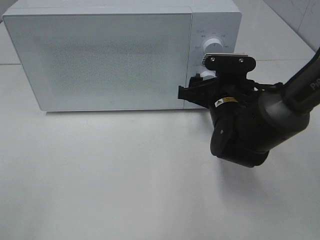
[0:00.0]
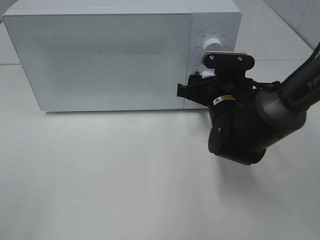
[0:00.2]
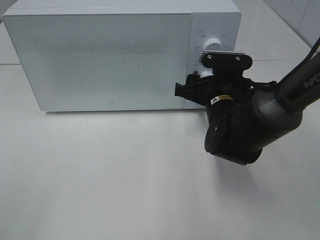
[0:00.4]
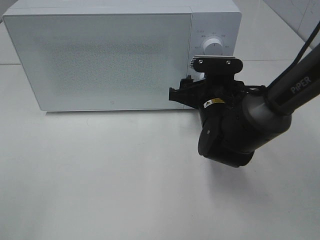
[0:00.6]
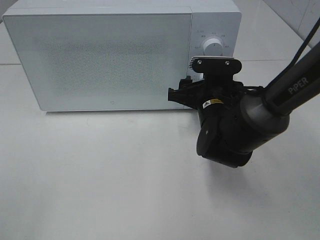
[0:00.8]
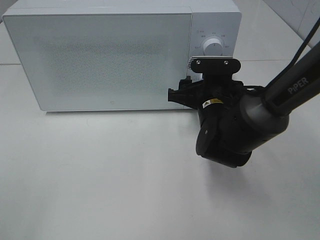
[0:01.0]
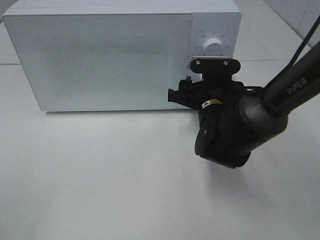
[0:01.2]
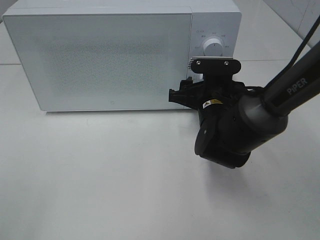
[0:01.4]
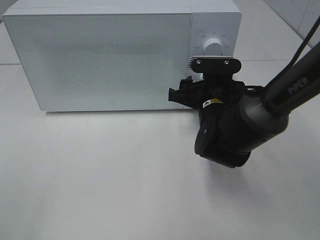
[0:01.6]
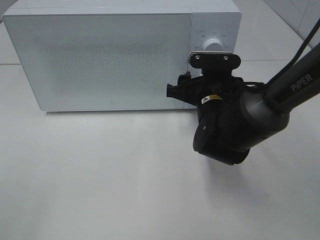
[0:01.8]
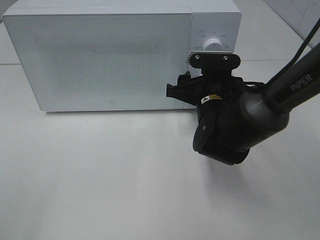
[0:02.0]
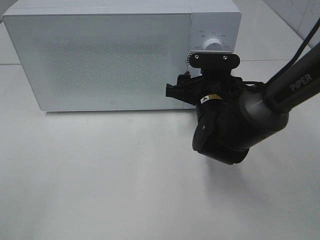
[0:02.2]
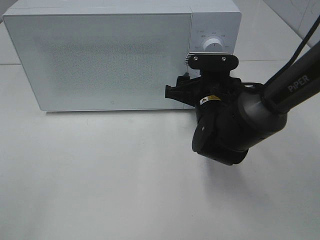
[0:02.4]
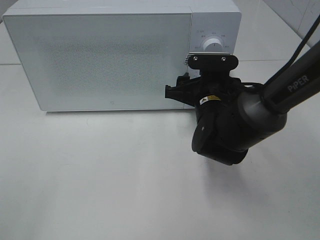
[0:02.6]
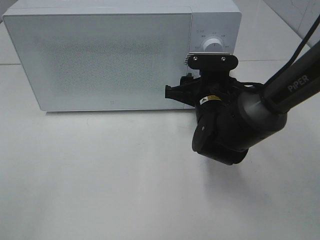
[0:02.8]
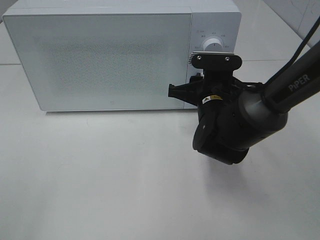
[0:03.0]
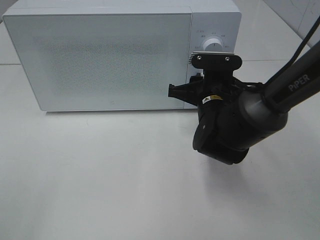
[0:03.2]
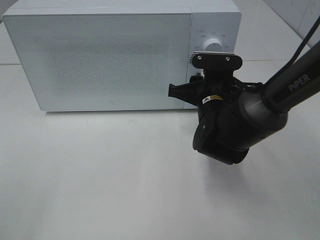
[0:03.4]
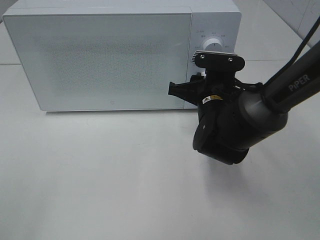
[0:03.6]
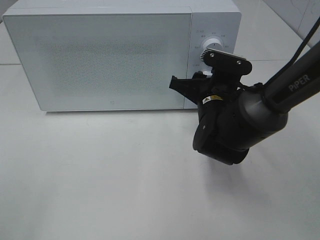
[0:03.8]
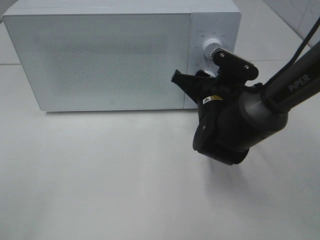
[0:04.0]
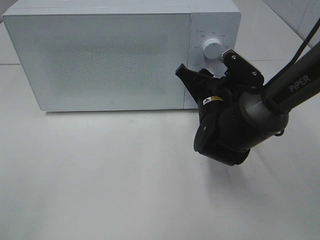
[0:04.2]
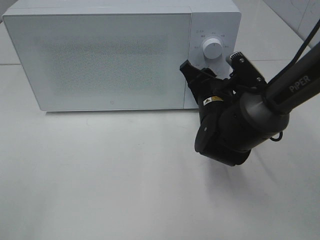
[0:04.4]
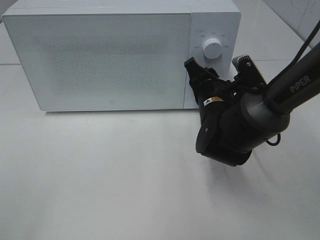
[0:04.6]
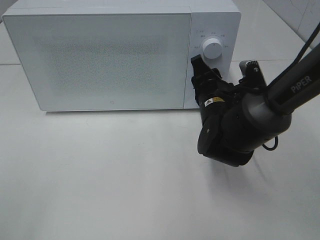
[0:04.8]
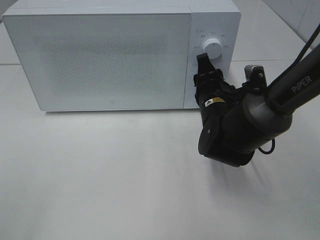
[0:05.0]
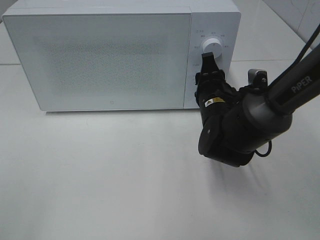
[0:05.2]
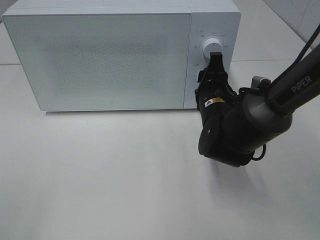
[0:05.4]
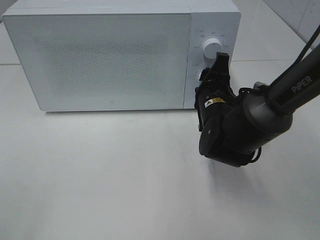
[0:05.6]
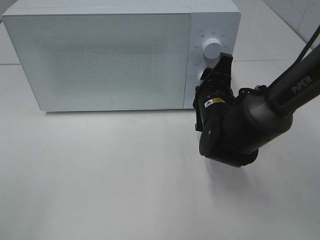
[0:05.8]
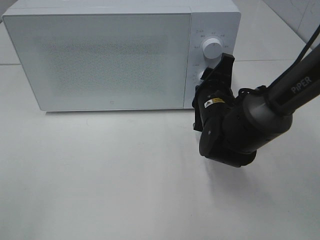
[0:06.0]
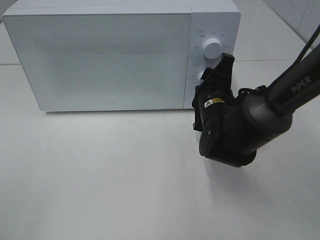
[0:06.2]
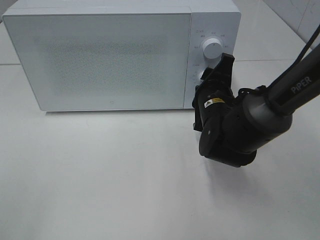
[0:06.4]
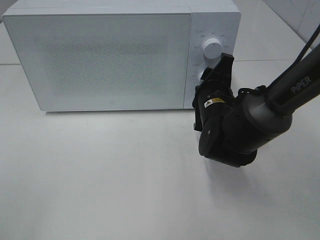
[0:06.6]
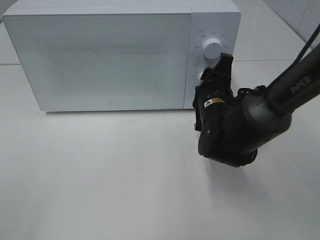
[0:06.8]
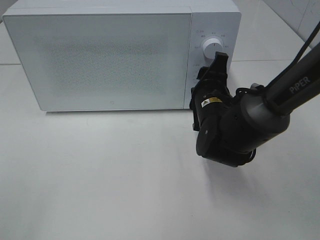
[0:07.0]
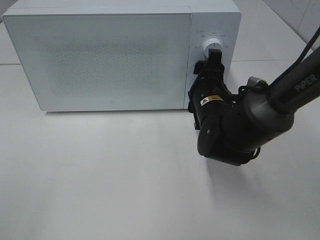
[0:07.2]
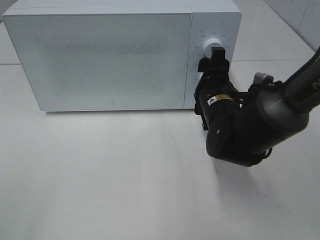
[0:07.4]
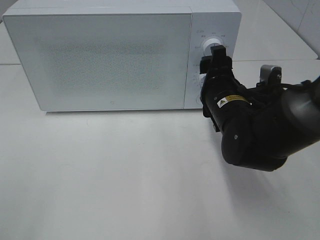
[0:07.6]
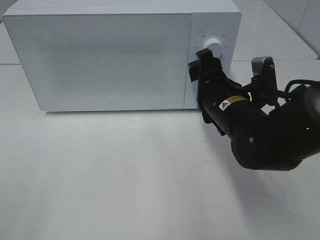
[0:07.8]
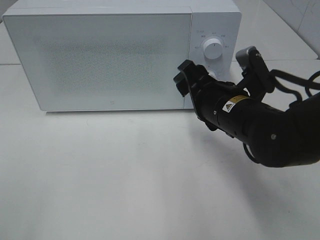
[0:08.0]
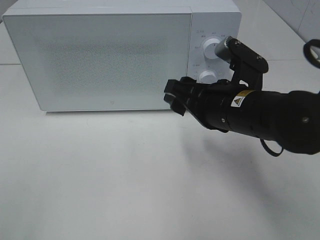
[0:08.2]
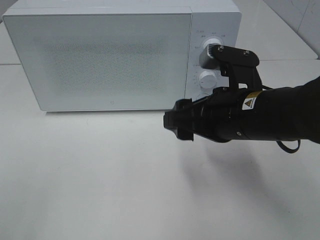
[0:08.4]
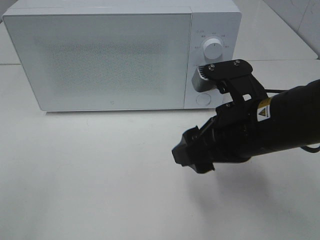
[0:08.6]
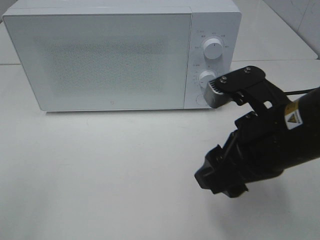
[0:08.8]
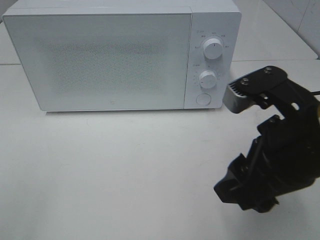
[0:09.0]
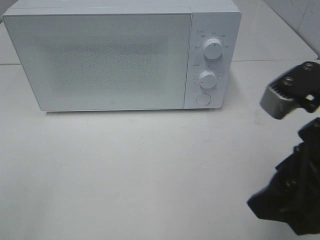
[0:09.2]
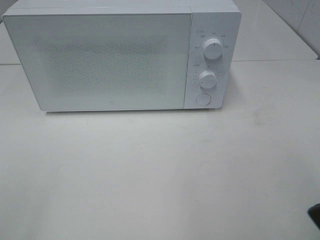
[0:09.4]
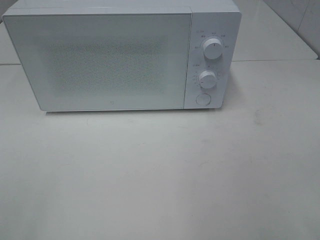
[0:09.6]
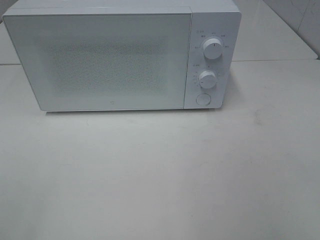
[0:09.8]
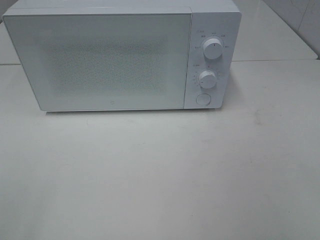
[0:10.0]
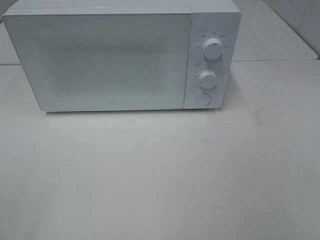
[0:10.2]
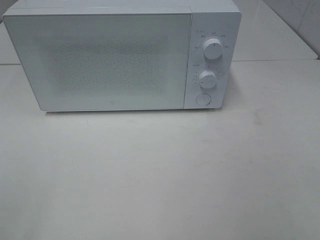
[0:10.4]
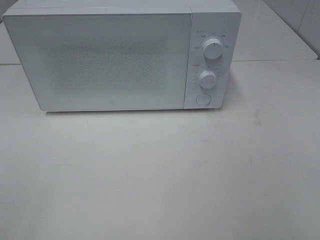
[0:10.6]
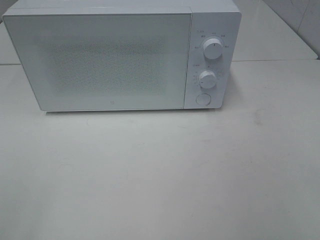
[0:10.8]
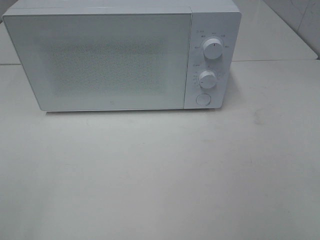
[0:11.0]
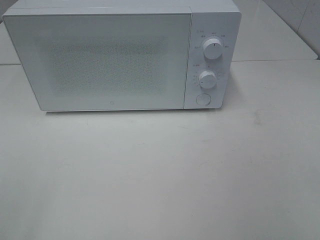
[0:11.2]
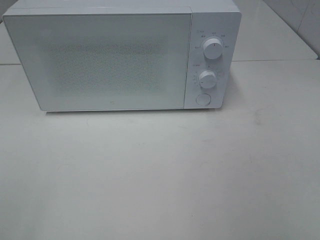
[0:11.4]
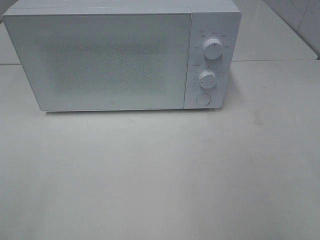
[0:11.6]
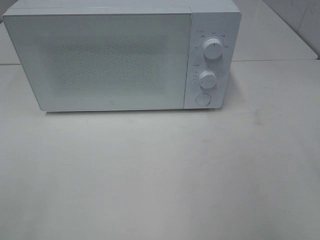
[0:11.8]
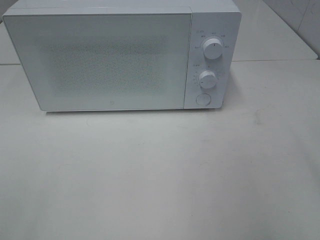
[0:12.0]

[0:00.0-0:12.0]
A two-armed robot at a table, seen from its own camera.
Task of the whole recording: Heat the burger.
Step, 0:00.0 to 0:07.8: Right hand: twist timer button.
0:00.0 to 0:01.6: The grippers move only a little.
0:01.6 to 0:03.0: Neither gripper changes place.
0:07.6 to 0:09.0: The right gripper is displaced backward and upward by roughly 15 cm.
0:09.0 to 0:10.4: The right gripper travels backward and to the right by roughly 20 cm.

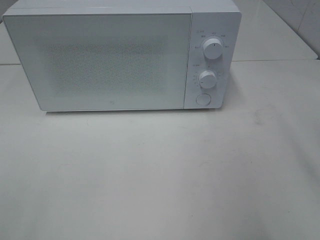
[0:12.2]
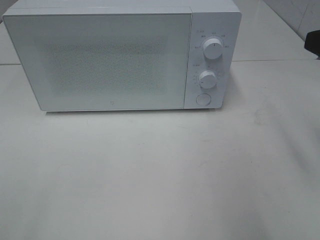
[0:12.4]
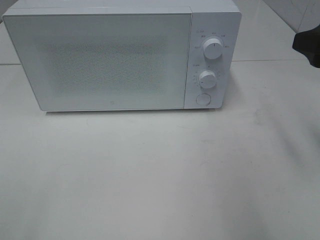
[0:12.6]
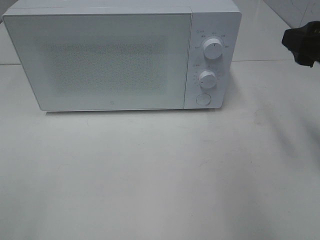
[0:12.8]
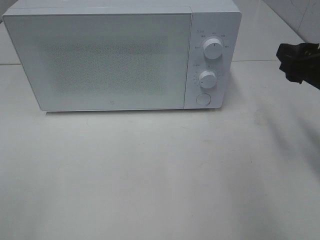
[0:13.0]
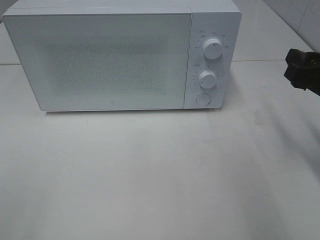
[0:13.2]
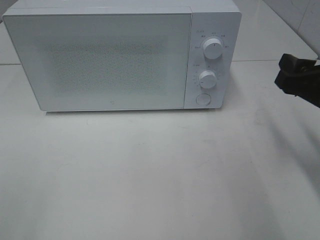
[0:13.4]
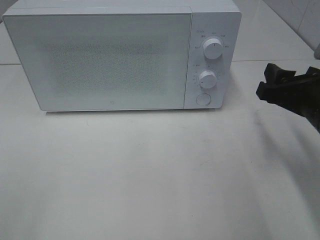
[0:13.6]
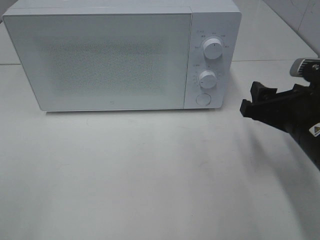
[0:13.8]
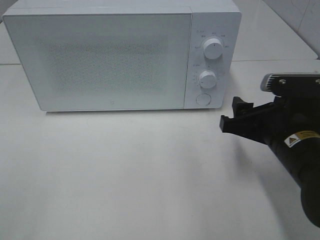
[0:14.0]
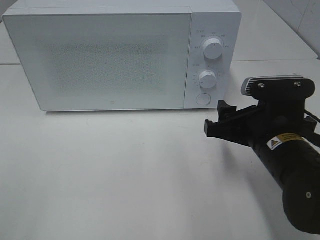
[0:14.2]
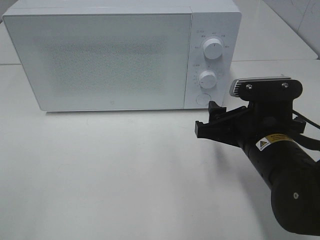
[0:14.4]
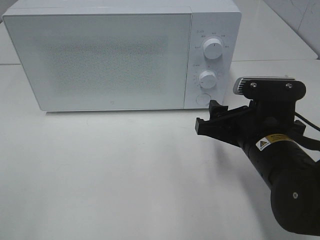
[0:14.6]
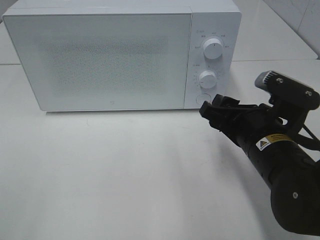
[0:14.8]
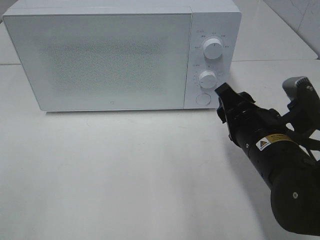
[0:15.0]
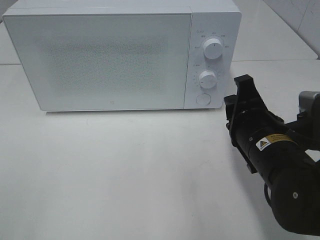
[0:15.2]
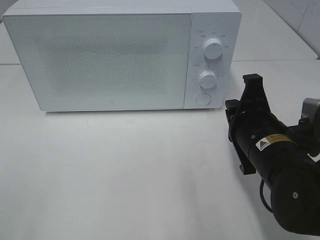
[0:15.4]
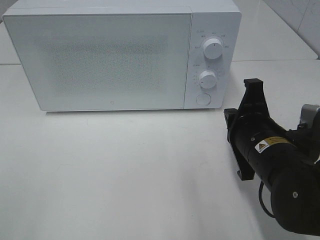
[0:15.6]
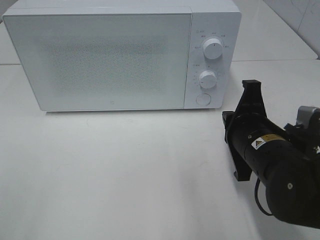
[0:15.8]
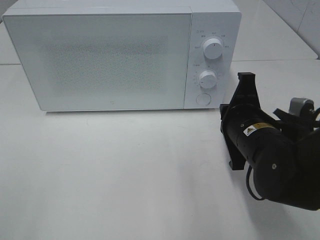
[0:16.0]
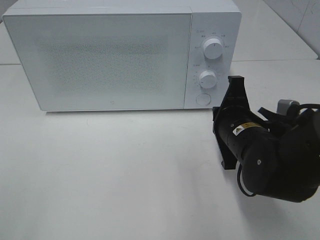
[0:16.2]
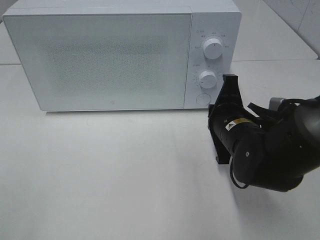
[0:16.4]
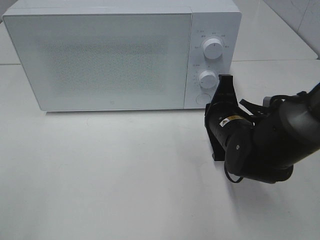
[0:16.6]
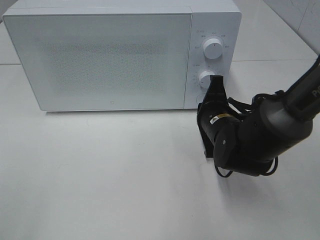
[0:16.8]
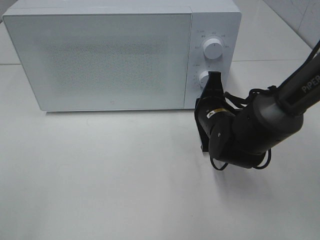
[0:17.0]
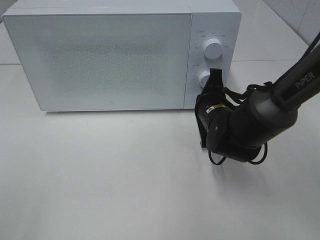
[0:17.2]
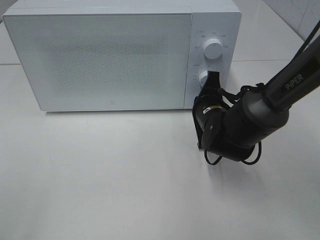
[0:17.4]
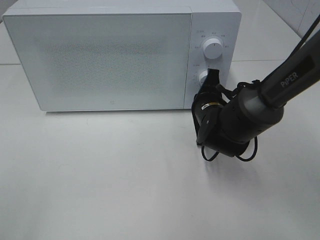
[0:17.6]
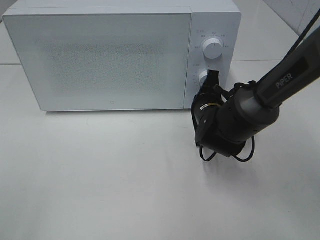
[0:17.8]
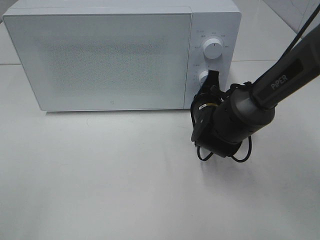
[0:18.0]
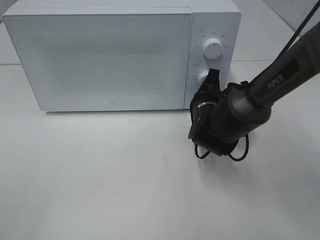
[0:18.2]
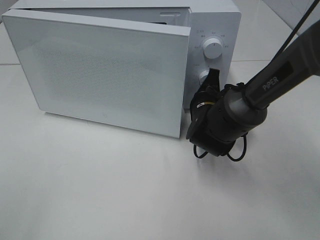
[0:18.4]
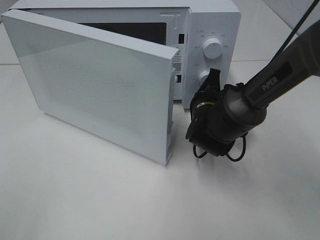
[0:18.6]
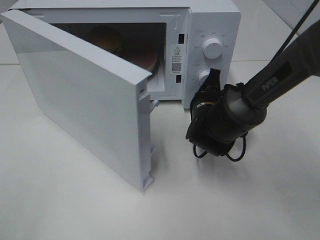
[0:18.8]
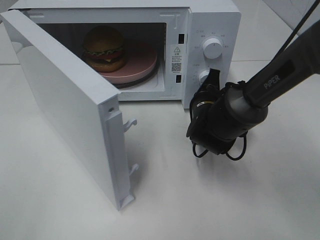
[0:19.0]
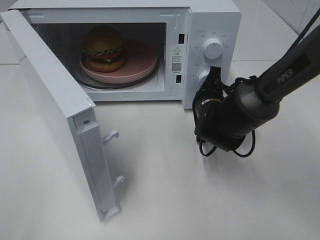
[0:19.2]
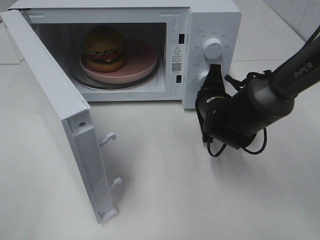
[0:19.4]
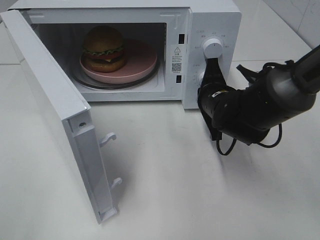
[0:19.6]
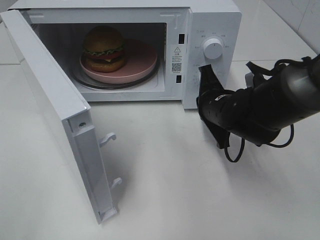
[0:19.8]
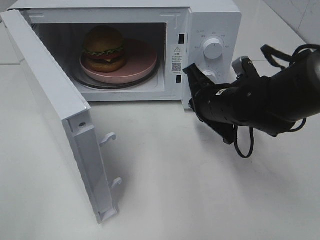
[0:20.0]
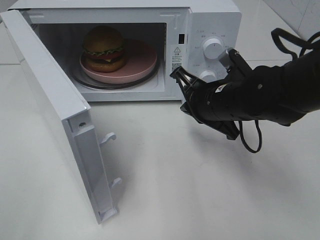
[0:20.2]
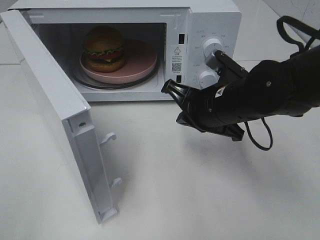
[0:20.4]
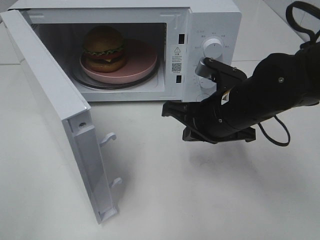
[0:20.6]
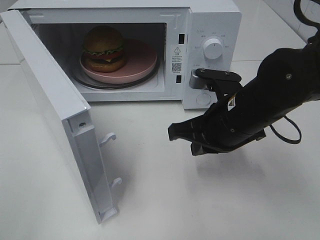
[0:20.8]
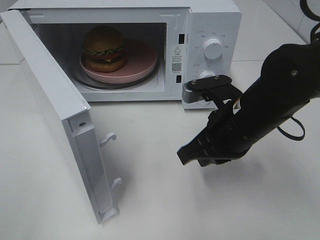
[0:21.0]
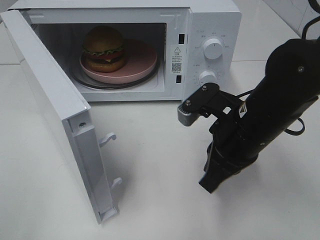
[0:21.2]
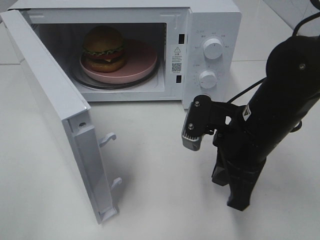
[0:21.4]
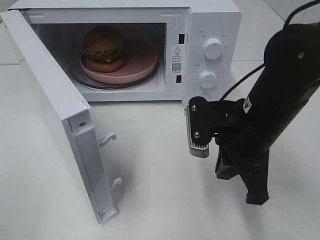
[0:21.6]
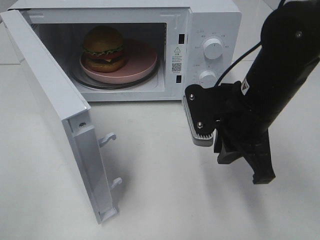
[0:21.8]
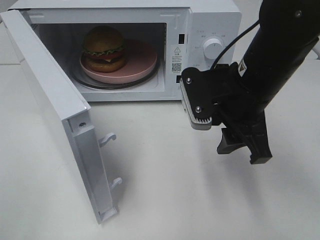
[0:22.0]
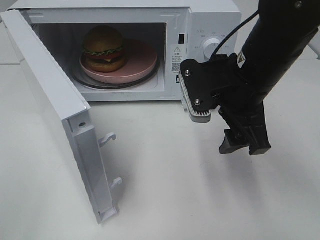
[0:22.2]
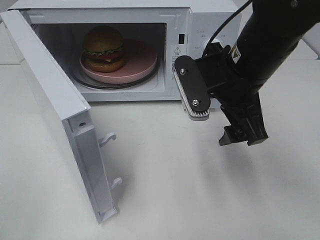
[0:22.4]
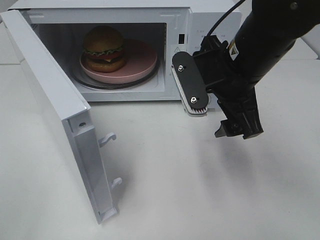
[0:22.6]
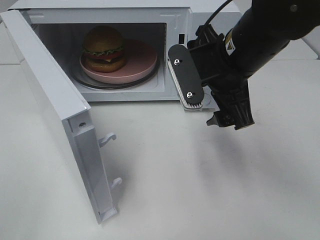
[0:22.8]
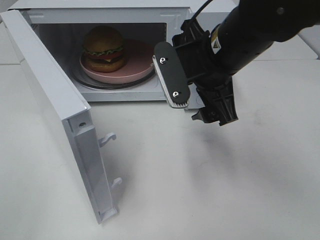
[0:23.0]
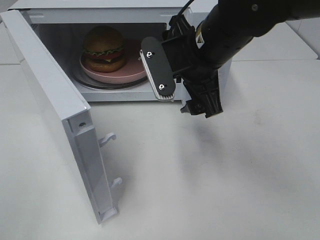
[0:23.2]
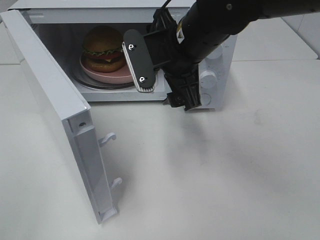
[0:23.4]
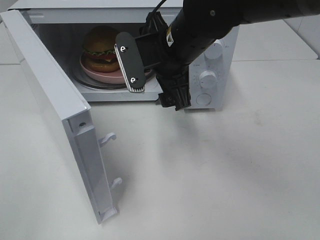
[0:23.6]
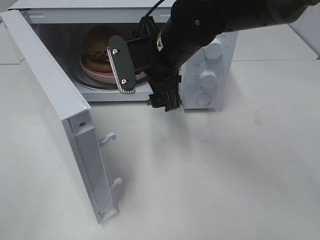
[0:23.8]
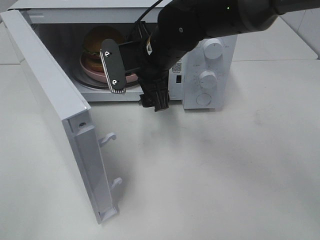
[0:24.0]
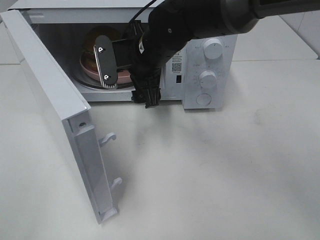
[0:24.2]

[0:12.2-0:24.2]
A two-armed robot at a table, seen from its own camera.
Task of the whole recording: Heat the burger.
Step, 0:12.2 to 0:19.6: Right hand: press the switch.
0:12.2 to 0:13.8: The right gripper shifts some 15 cm downward.
0:13.8 to 0:15.2: The right gripper shifts roughly 5 cm to the left, and closes its fingers.
0:15.2 to 0:16.6: The right gripper shifts some 10 cm forward, and closes.
0:16.6 to 0:18.2: The right gripper heads forward, covering some 5 cm.
0:18.2 to 0:19.8: The right gripper shifts by approximately 5 cm.
0:19.8 to 0:21.2: The right gripper heads backward and upward, covering roughly 10 cm.
0:21.2 to 0:22.6: The right gripper shifts roughly 5 cm upward, and opens its fingers.
0:22.6 to 0:24.2: The right gripper moves to the left and forward, roughly 15 cm.
